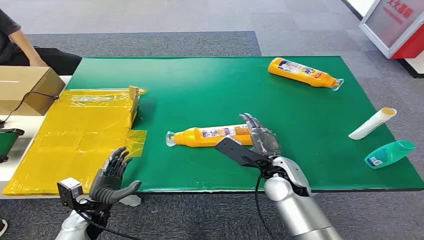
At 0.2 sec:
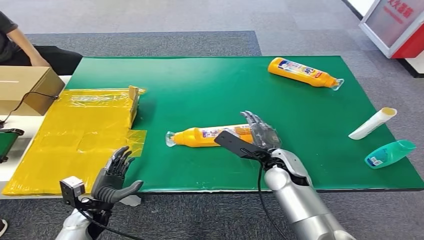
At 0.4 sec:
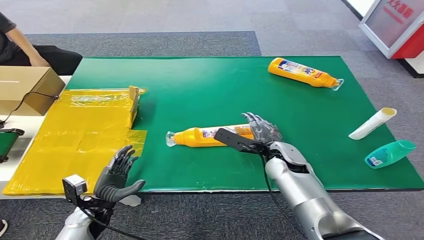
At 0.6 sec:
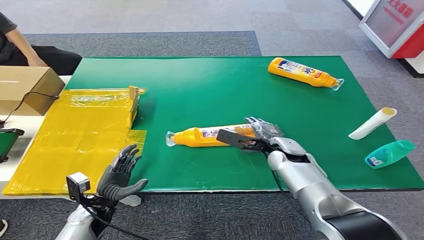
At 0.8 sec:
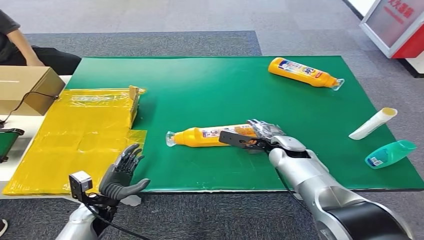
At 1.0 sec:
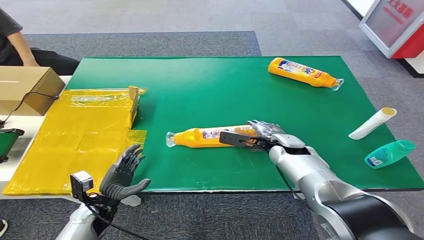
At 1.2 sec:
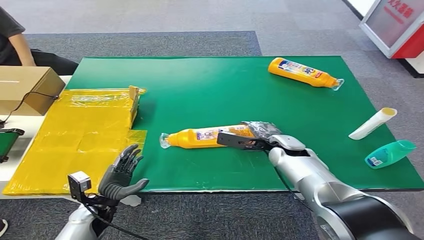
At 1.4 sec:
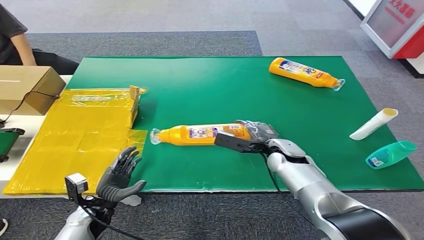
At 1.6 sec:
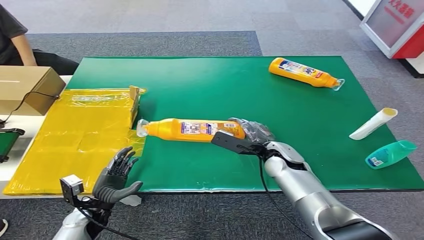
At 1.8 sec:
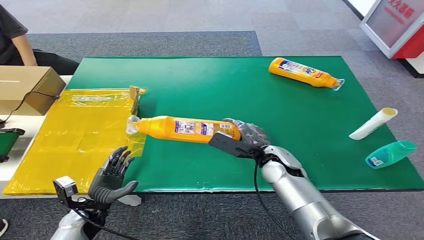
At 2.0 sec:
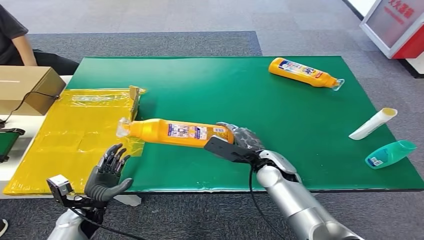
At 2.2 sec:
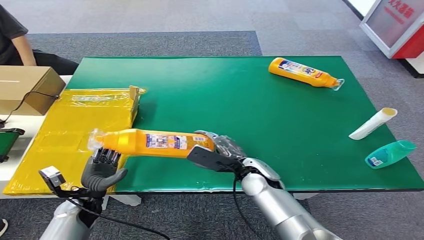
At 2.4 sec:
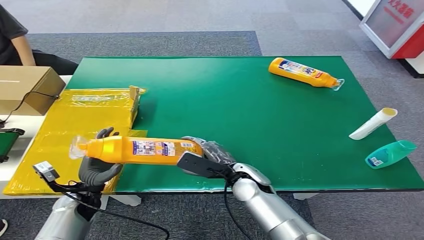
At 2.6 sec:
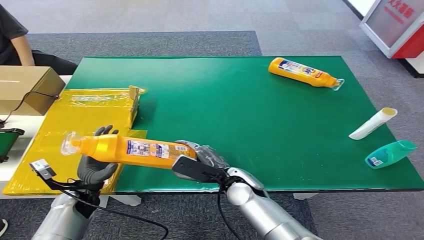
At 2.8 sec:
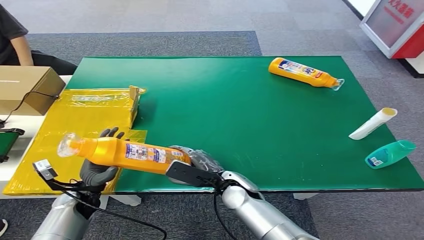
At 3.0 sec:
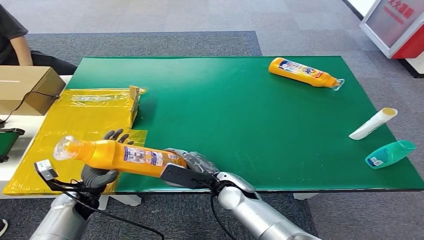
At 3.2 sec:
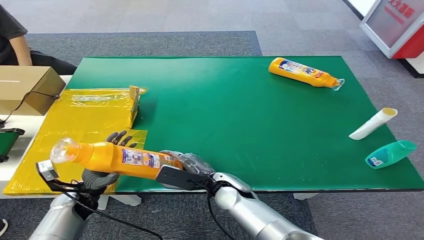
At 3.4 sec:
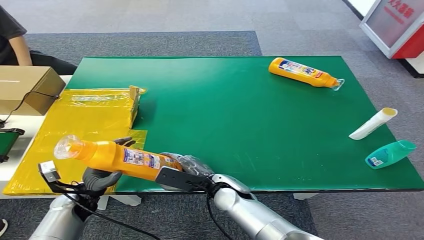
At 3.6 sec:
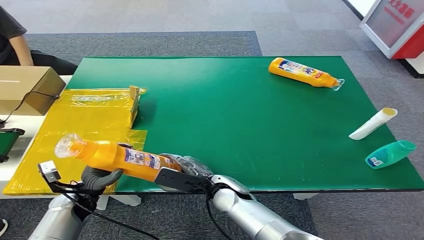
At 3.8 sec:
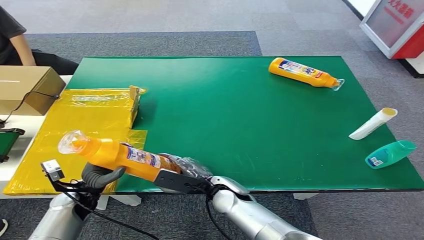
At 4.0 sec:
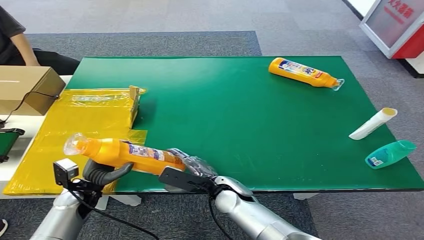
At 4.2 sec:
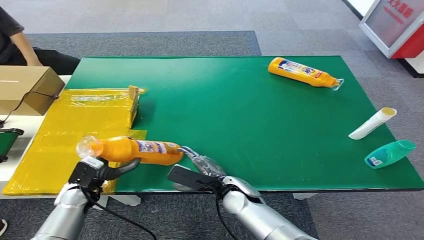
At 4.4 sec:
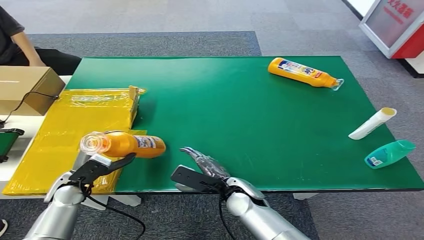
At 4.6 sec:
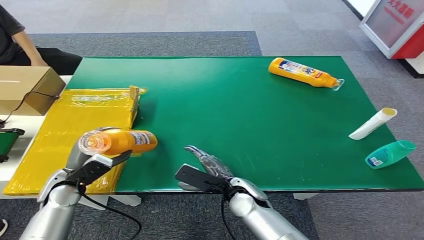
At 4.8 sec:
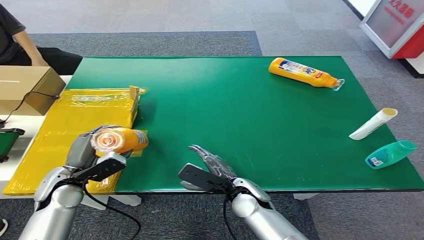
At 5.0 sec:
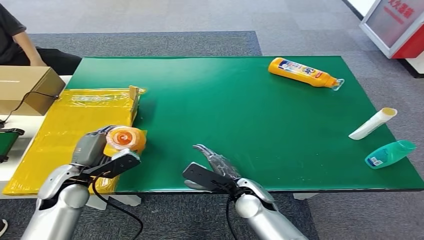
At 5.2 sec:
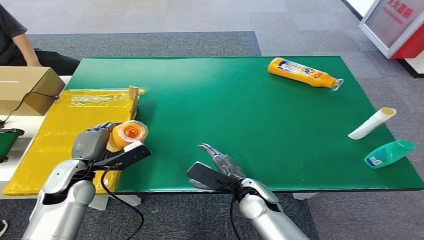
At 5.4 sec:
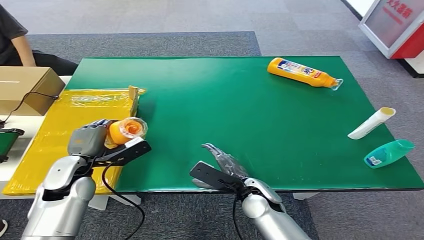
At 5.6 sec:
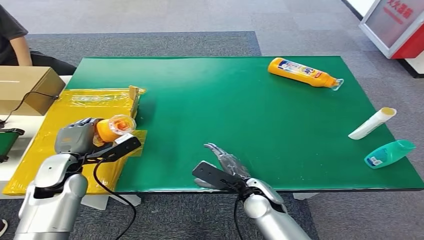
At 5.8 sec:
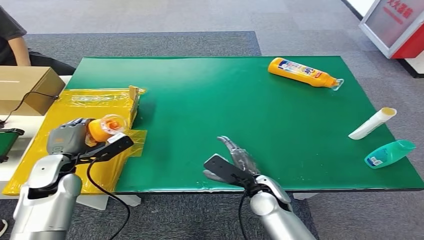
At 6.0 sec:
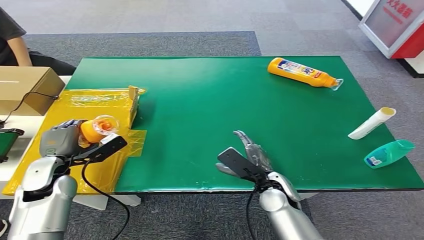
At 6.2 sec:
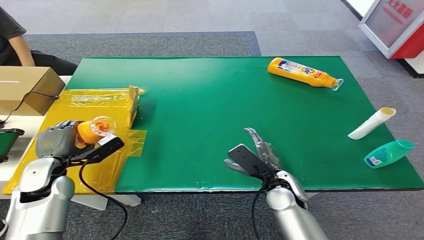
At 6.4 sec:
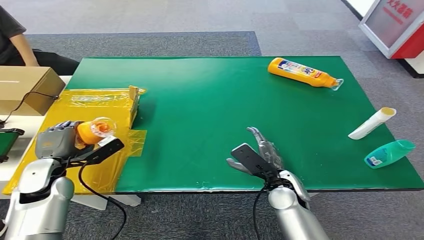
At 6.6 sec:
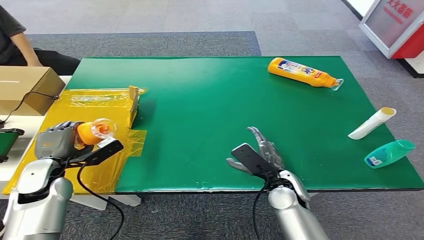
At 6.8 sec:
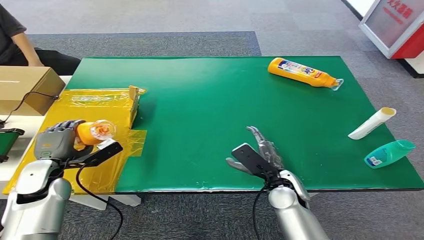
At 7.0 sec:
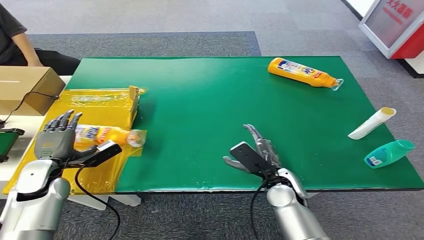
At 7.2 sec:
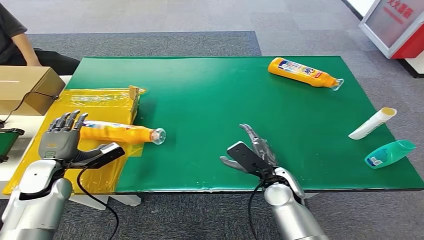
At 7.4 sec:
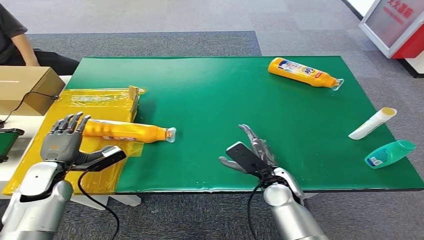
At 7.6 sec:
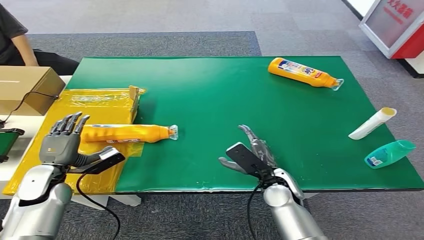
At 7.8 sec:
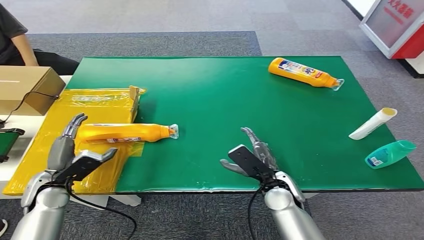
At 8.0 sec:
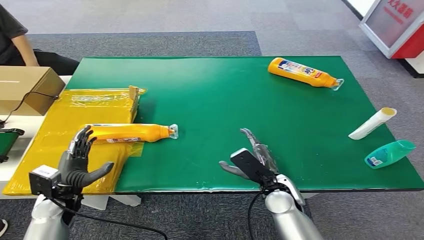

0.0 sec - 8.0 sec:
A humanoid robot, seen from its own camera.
Step, 0.0 sec - 2.0 sec: Pick up the bottle from the table.
Step, 2.2 sec - 8.0 sec: Turn the bottle to the front side.
1.6 sec - 3.2 sec: The right hand is displaced to the left and backward by approximately 15 cm. The left hand moves roughly 5 cm.
3.2 sec - 4.8 sec: The left hand goes some 10 cm upward.
4.8 sec - 6.4 sec: The right hand heads to the right, covering roughly 10 cm.
6.4 sec - 8.0 sec: The left hand shifts some 5 cm downward.

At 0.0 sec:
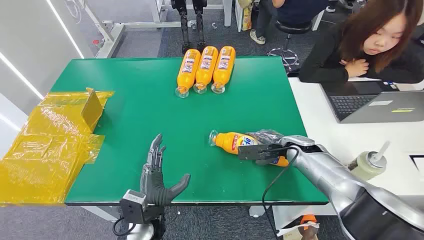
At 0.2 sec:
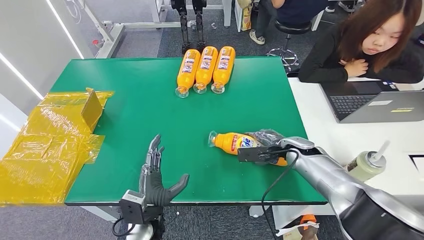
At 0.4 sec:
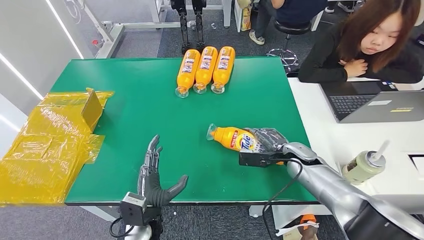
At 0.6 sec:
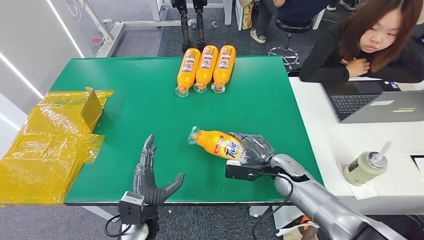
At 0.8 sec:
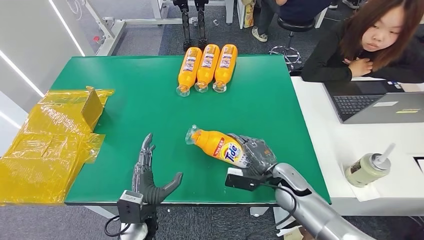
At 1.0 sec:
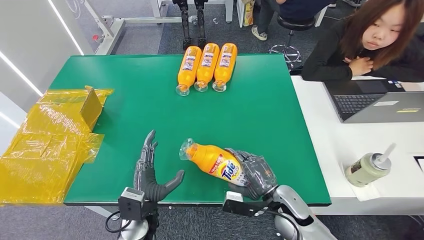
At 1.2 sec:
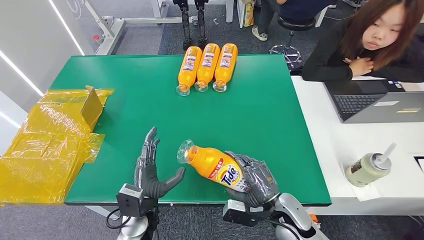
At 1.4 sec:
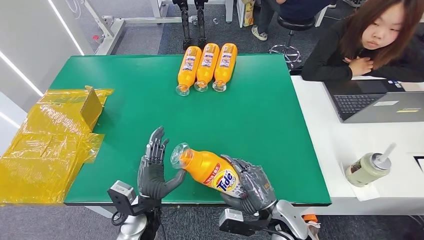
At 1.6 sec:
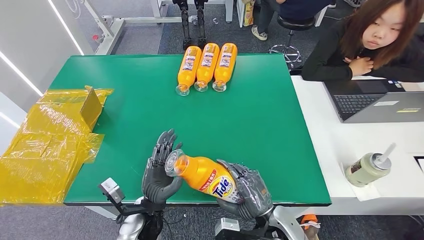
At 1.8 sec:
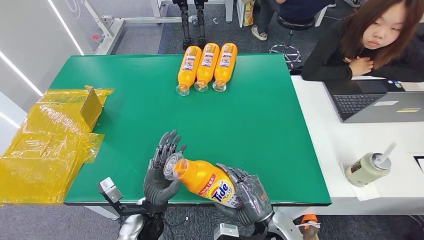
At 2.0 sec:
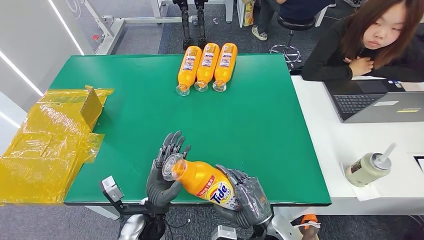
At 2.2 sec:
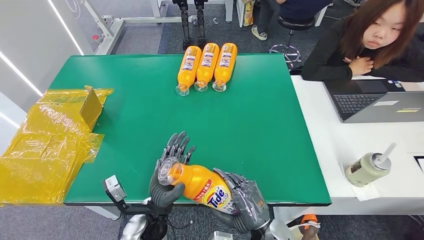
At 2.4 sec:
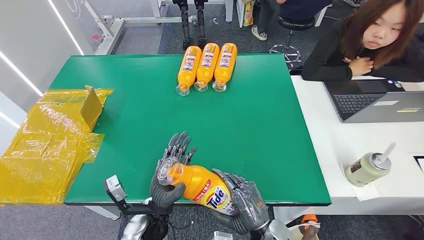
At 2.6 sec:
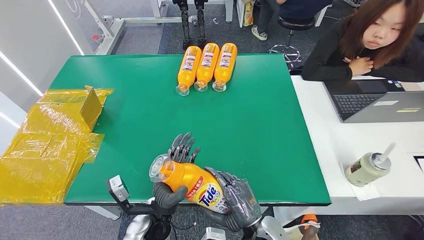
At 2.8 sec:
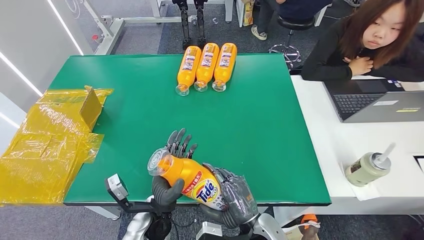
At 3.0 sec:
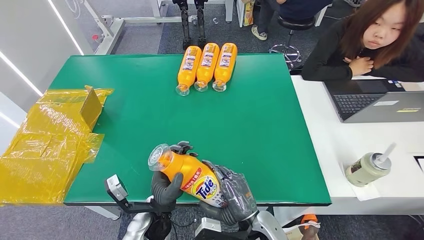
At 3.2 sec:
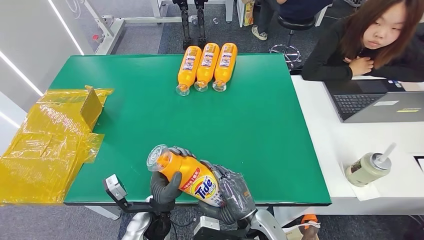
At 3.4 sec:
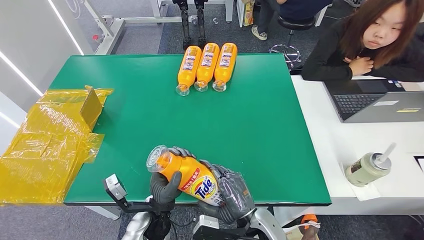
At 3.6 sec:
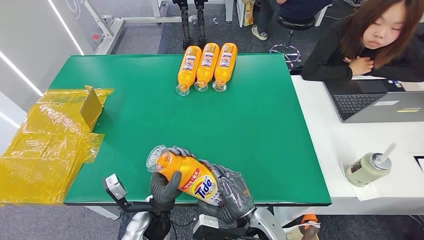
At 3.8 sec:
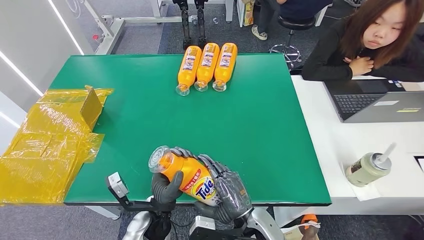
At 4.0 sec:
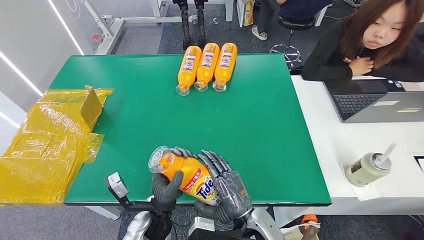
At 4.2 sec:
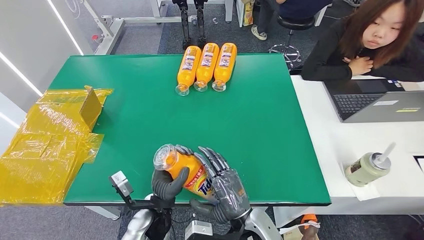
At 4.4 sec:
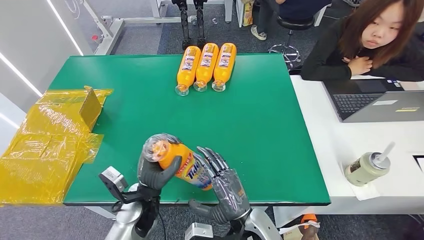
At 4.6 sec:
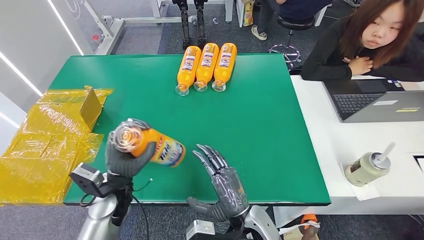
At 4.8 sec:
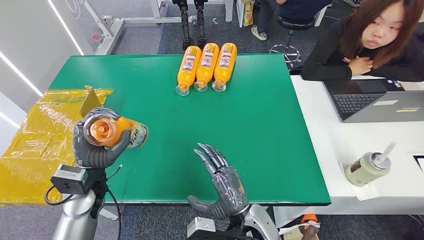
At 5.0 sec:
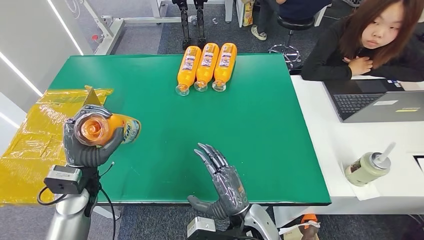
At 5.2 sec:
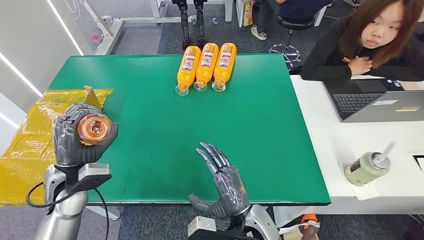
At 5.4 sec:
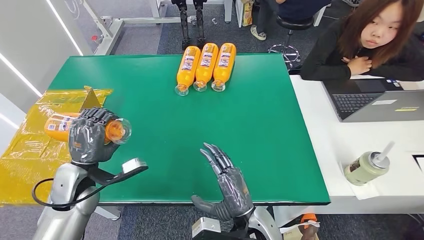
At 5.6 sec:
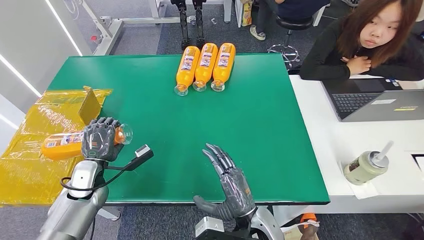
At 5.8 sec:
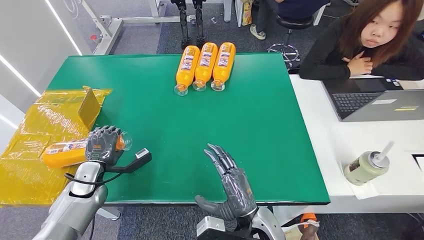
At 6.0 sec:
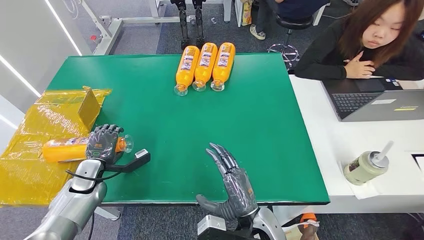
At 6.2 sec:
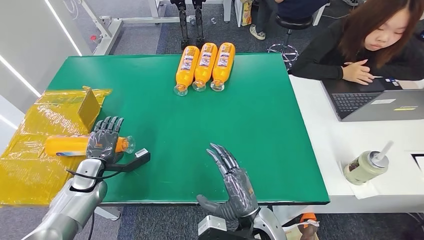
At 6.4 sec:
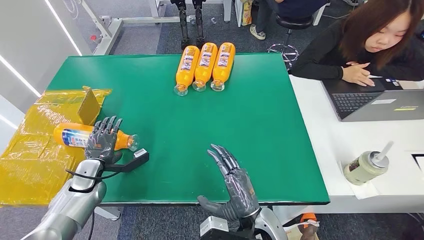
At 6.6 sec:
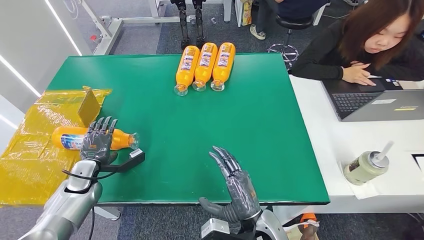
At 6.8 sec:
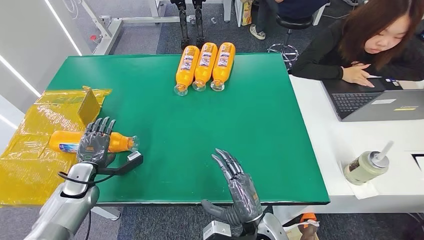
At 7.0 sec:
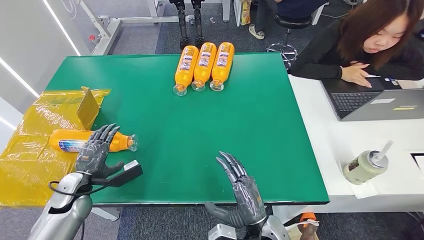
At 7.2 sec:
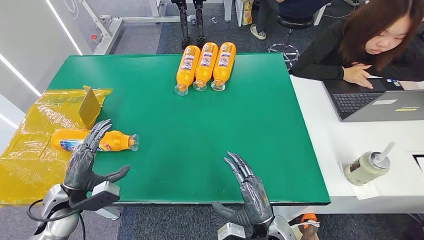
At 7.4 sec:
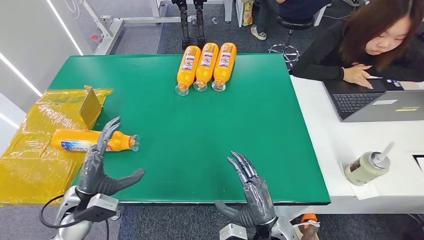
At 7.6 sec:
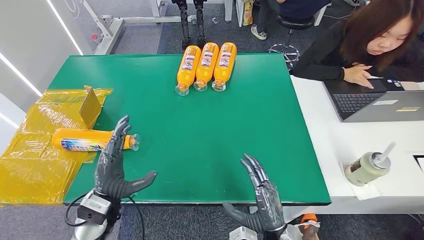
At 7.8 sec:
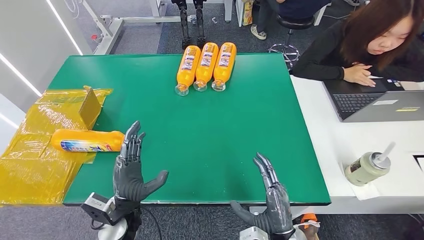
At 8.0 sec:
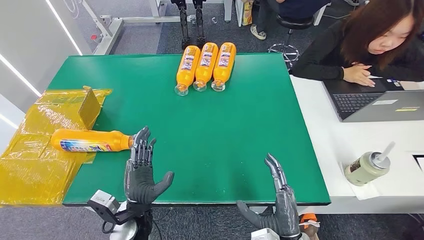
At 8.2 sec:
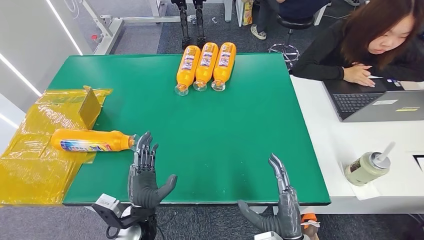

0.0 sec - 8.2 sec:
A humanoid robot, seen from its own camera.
Step, 0.0 sec - 2.8 sec: Pick up the bottle from the table.
Step, 3.0 sec - 8.2 sec: Turn the bottle to the front side.
1.6 sec - 3.2 sec: The right hand travels to the left by some 5 cm.
3.2 sec - 5.0 sec: The left hand heads to the left, forward and upward, covering roughly 20 cm.
6.6 sec - 8.2 sec: The left hand goes roughly 25 cm to the right and backward. The right hand travels to the right by about 5 cm.
